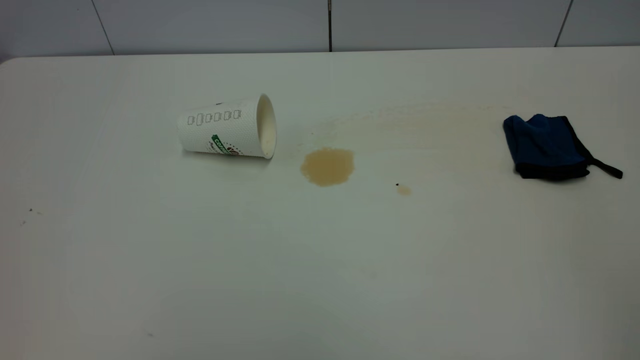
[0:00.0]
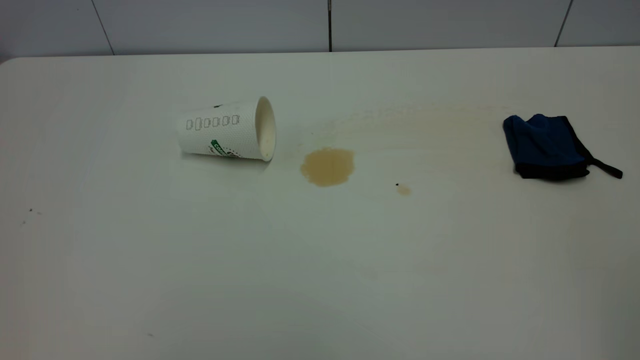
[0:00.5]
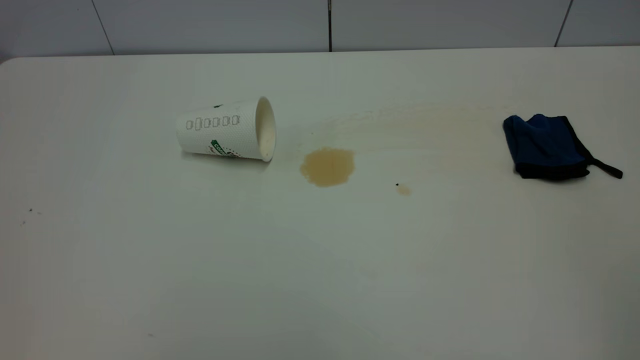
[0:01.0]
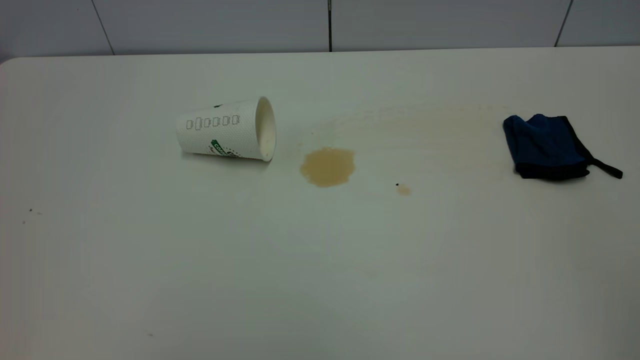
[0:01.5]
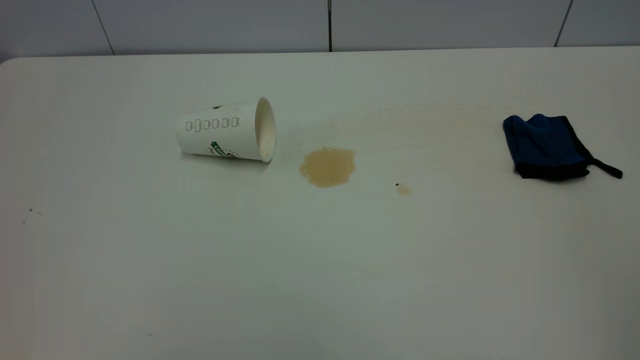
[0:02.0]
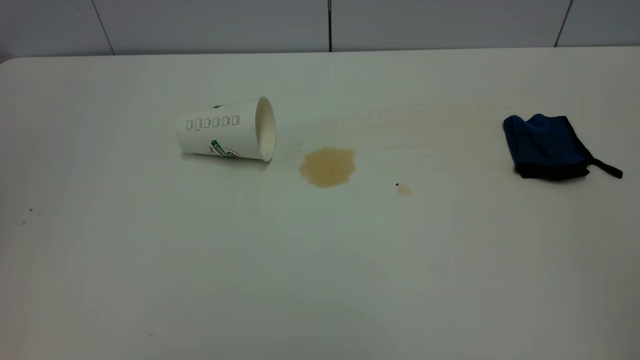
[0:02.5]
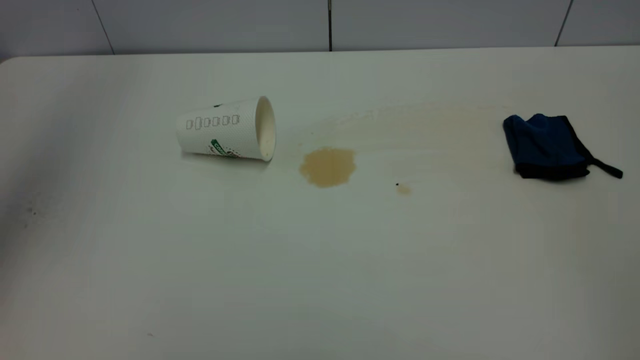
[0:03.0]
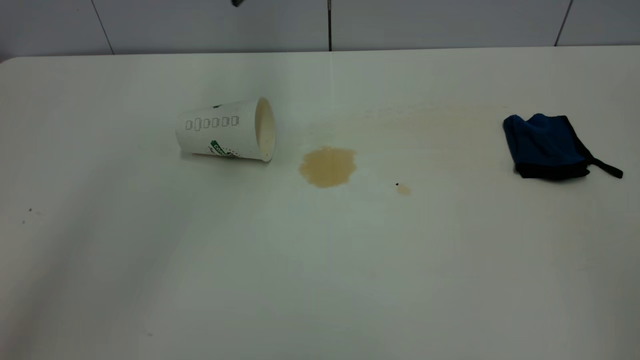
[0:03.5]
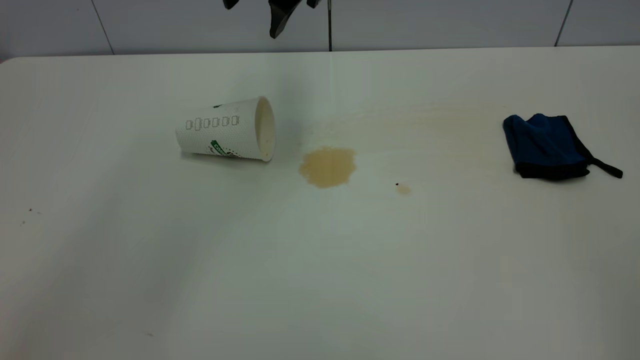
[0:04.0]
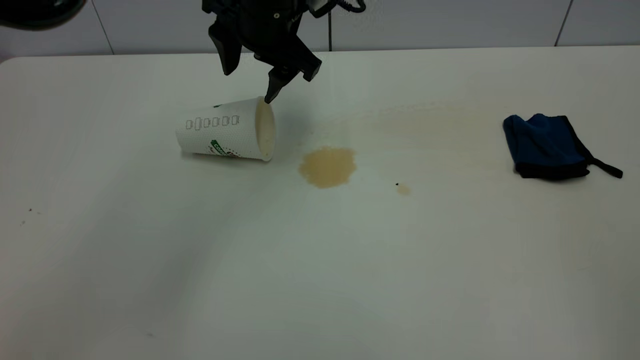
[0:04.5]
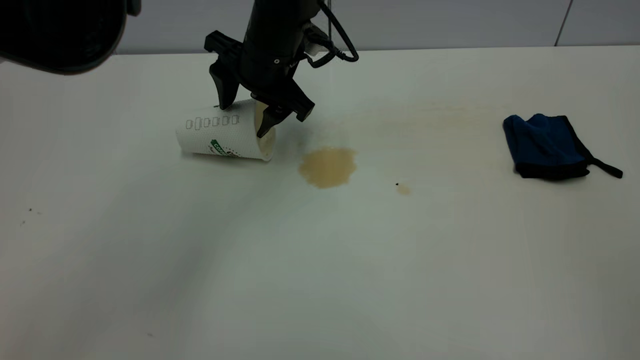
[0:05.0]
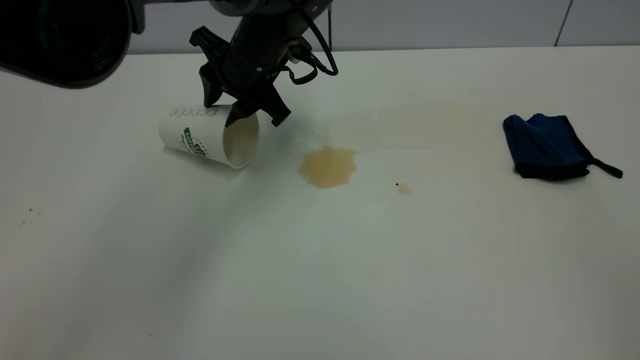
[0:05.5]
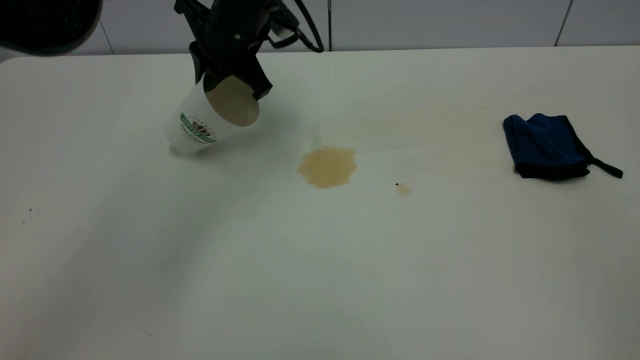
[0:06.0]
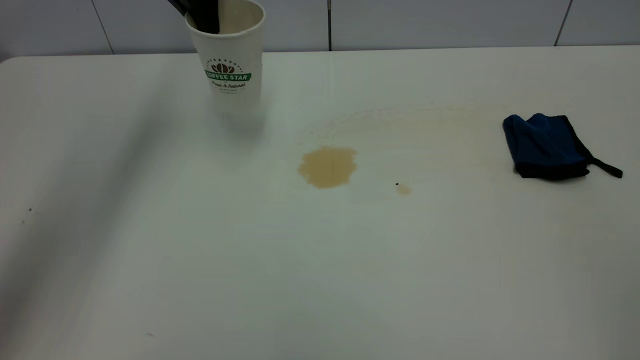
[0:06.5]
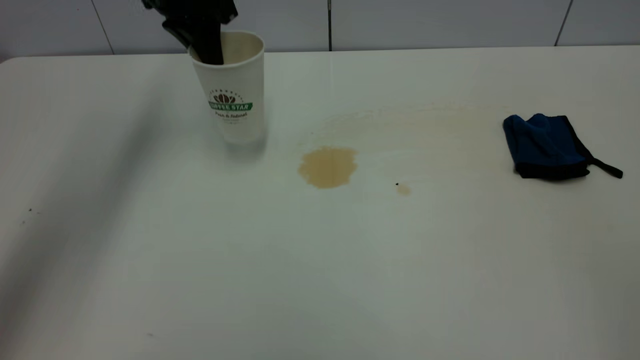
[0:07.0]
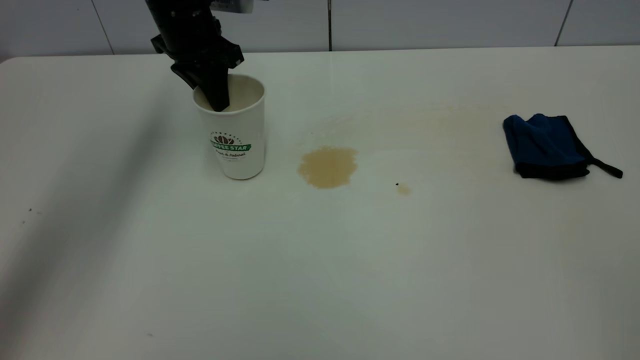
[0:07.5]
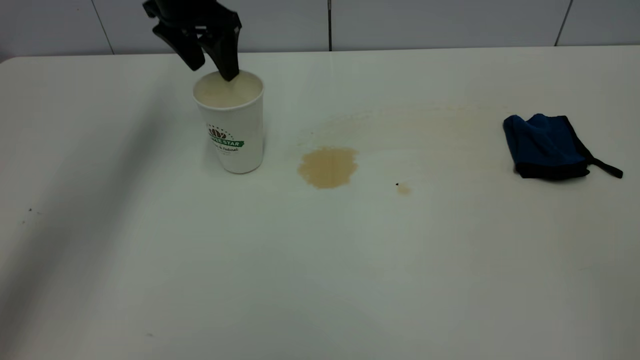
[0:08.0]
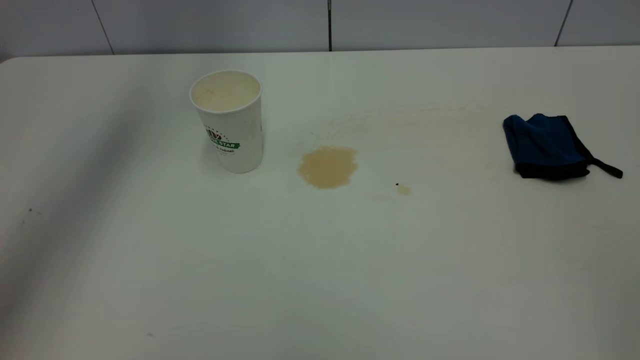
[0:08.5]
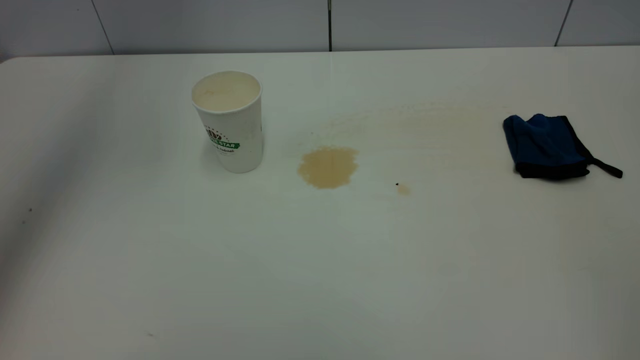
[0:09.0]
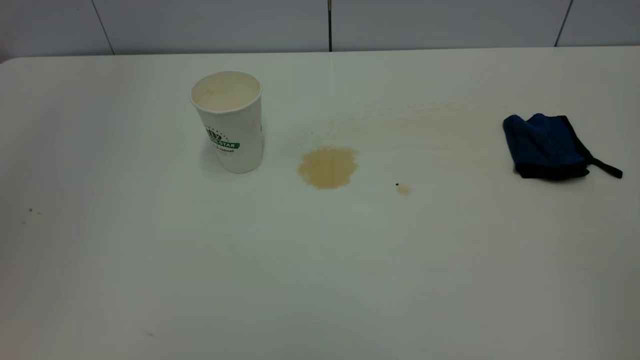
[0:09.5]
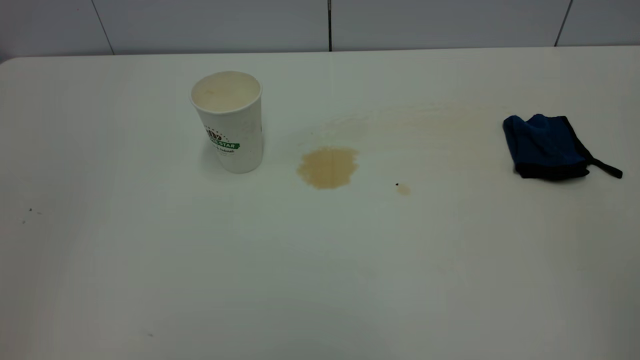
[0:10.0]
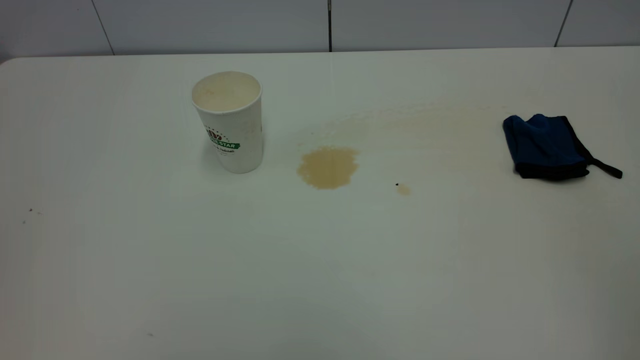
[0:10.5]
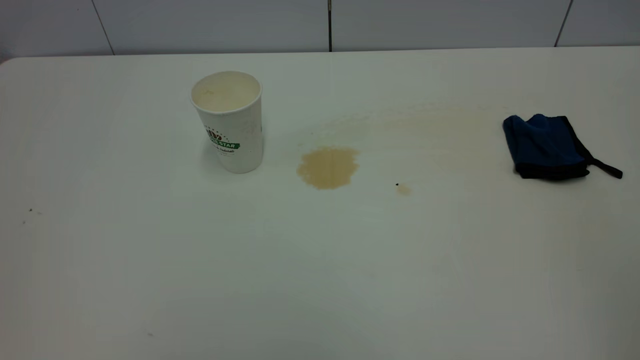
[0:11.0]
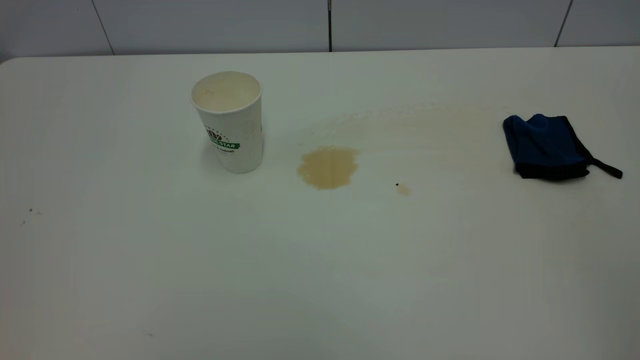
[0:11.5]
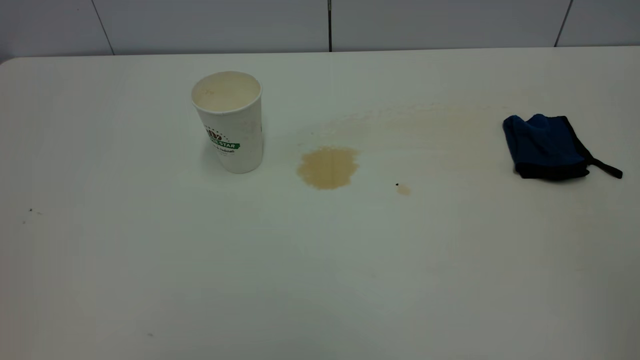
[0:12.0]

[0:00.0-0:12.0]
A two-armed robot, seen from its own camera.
Task of the whole recording: the left gripper pick up the fallen cup and place it upright, the right gripper grasp the blue rag and wipe the tea stain on the table, the right gripper put the blue rag back in its original position.
Step, 0:00.0 to 0:08.0: Stand the paper cup upright.
0:00.0 to 0:02.0: Both grippers stay about where they are.
0:02.0 to 0:04.0: The left gripper goes some 50 cm forward and to the right, and opens its fingers.
0:04.0 to 0:06.0: The left gripper heads downward, covering roughly 10 cm, and closes up.
0:06.0 to 0:08.0: The left gripper goes up and down, roughly 10 cm each way, reversing 2 times, and opens up.
0:08.0 to 0:10.0: The left gripper moves backward, approximately 40 cm, and closes its fingers.

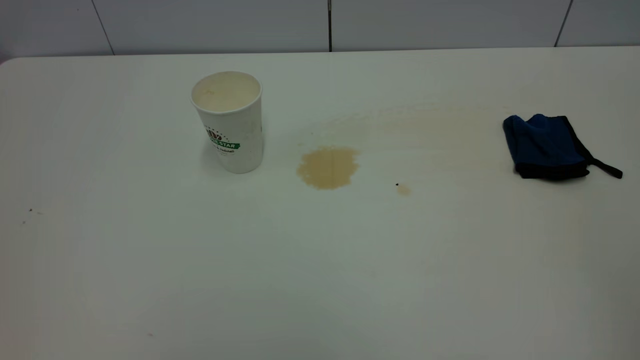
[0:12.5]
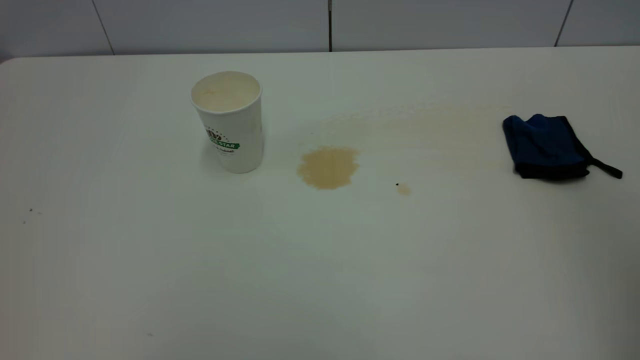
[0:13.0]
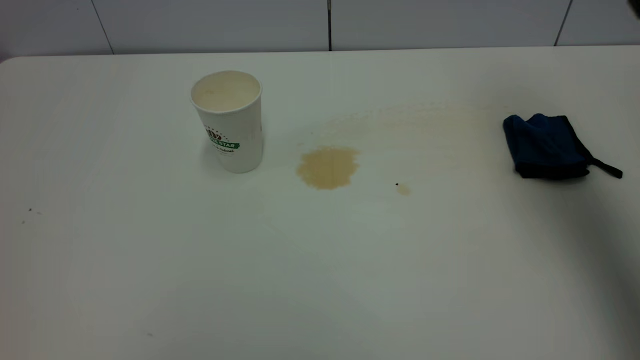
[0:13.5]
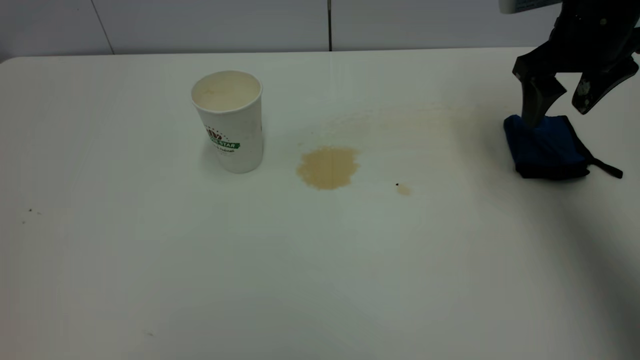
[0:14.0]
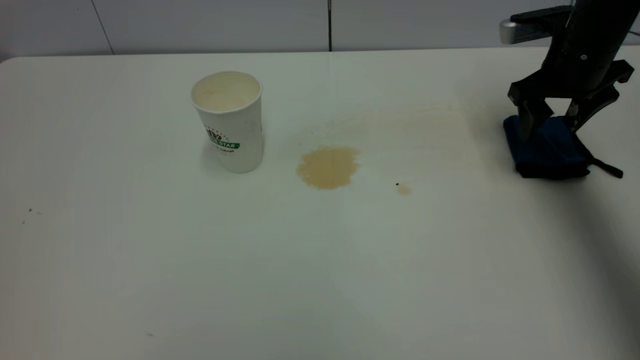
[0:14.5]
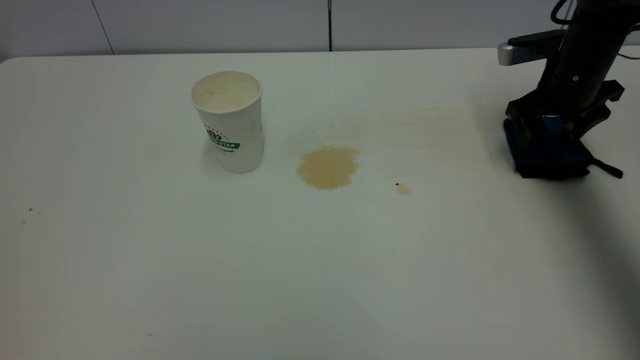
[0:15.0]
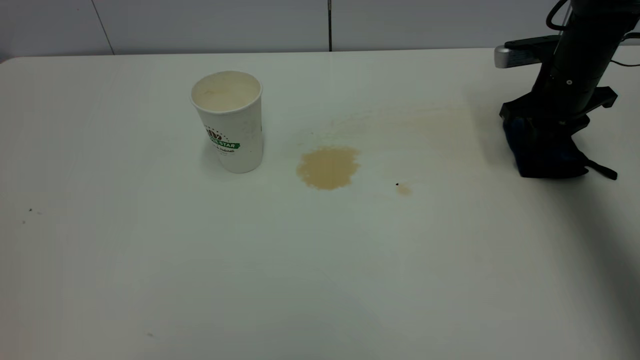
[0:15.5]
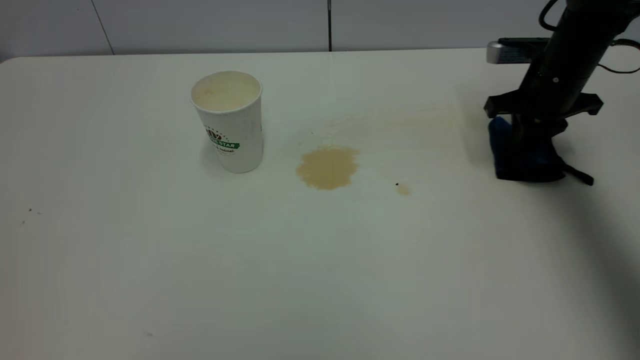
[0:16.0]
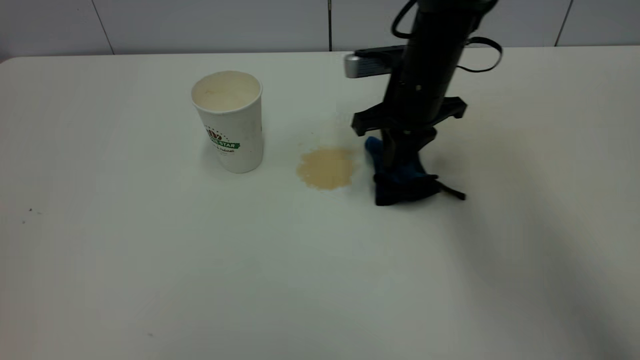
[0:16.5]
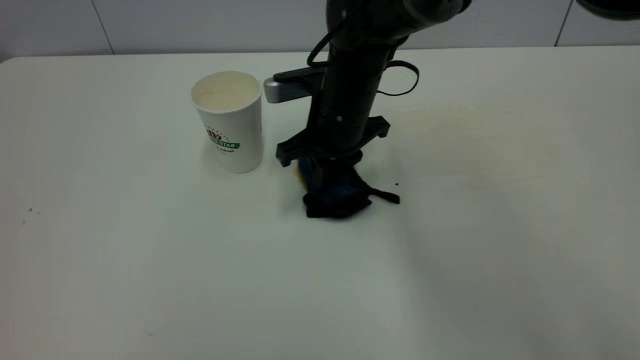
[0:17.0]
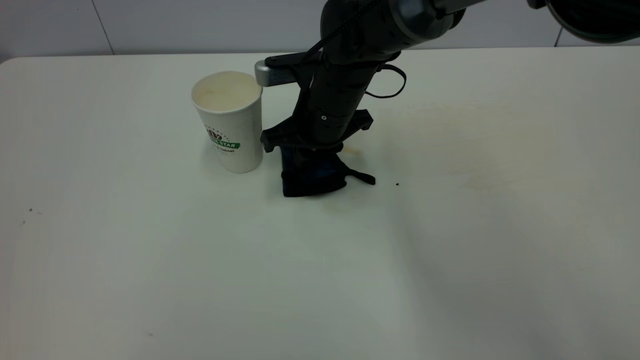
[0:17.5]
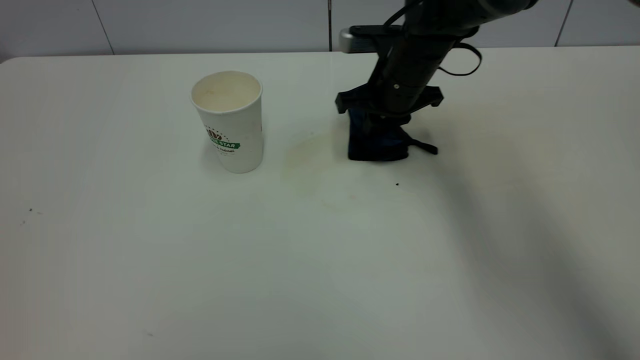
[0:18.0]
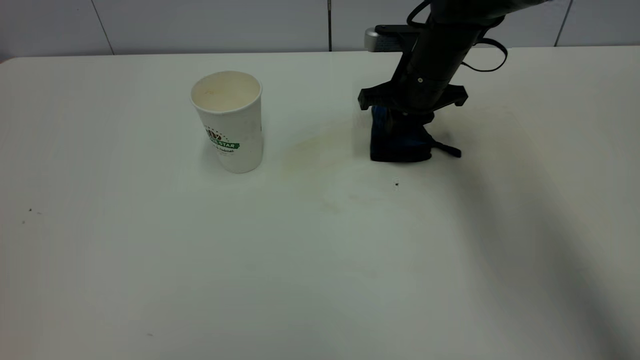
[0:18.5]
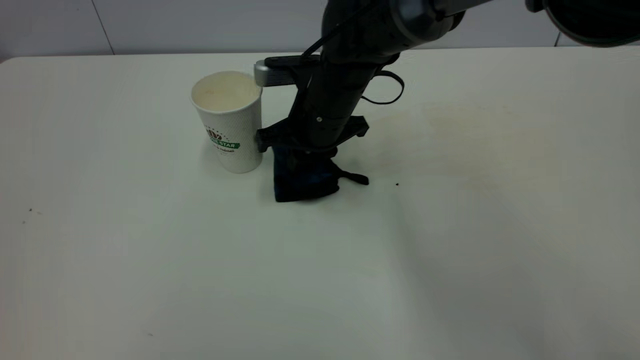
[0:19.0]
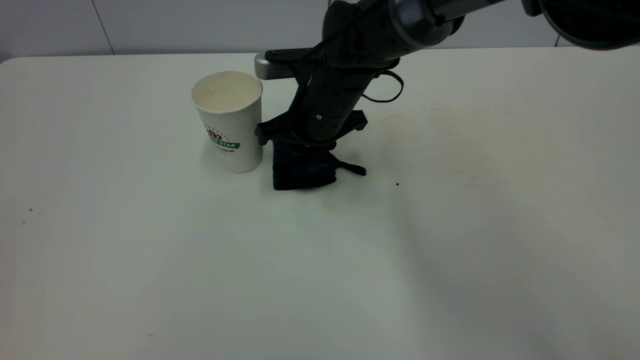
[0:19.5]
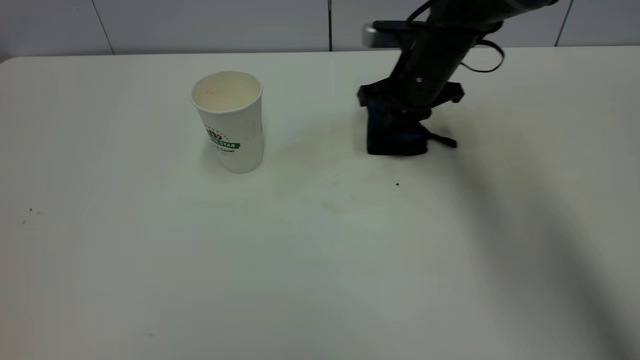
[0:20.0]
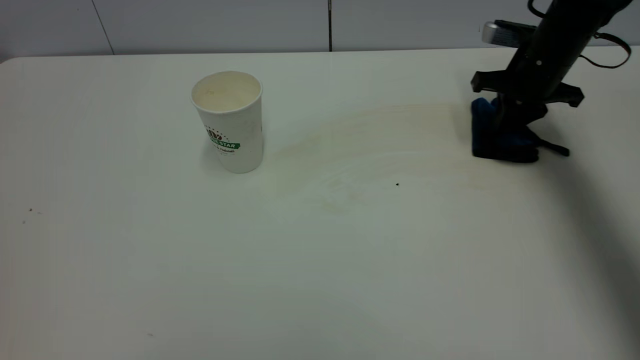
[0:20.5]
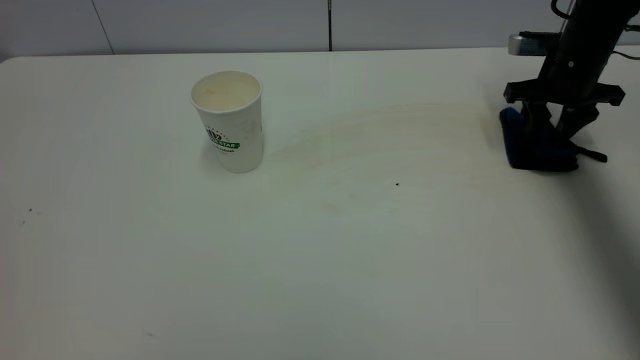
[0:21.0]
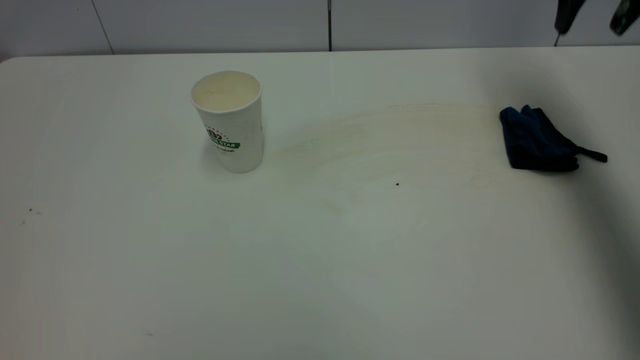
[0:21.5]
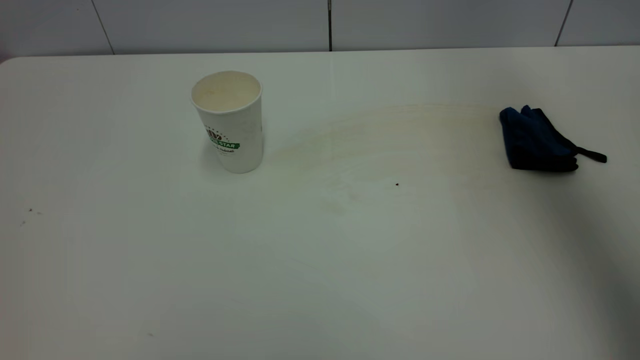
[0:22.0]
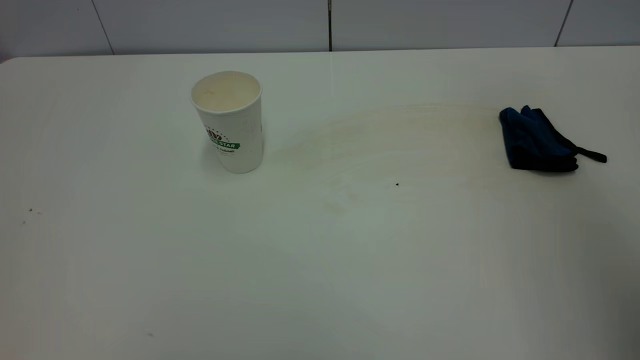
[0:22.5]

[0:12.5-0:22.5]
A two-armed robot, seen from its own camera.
Task of the whole recording: the left gripper pick up the fallen cup and place it upright, the right gripper grasp the blue rag and wipe the tea stain on the table, the right gripper put the blue rag back in its original position.
Step, 0:12.5 to 0:21.0: Wipe the stains off the table with a rag.
0:12.5 to 0:14.5: The right gripper moves forward and downward, about 50 cm, and opens up.
0:14.5 to 0:16.5: The right gripper moves to the left, roughly 20 cm, and closes its fingers.
0:16.5 to 0:18.5: The right gripper travels to the left and back again, roughly 10 cm each way.
0:18.5 to 0:20.5: The right gripper moves to the right, about 15 cm.
0:20.5 to 0:22.5: The right gripper moves upward and backward, about 50 cm, and opens its fingers.
